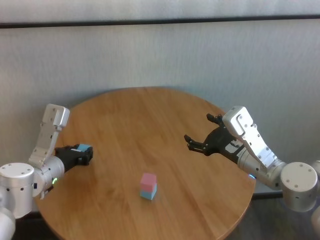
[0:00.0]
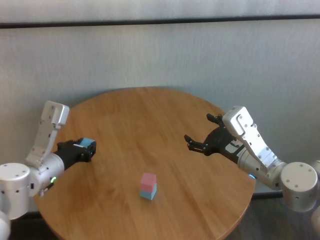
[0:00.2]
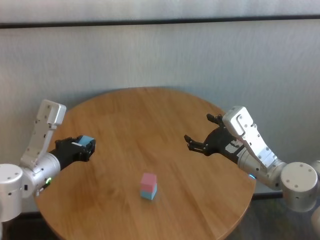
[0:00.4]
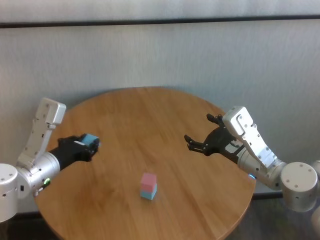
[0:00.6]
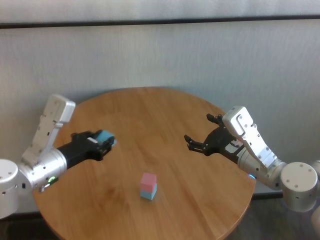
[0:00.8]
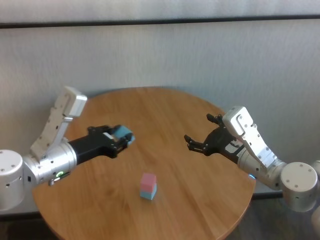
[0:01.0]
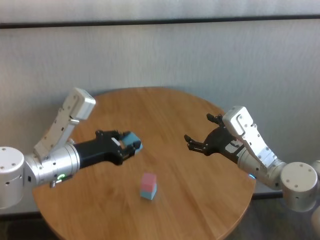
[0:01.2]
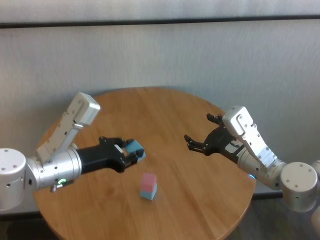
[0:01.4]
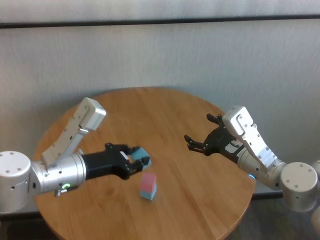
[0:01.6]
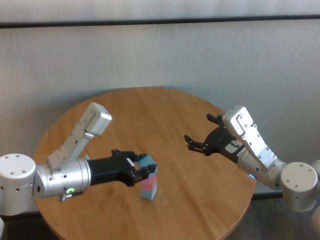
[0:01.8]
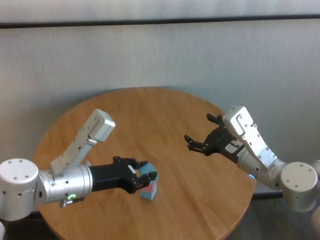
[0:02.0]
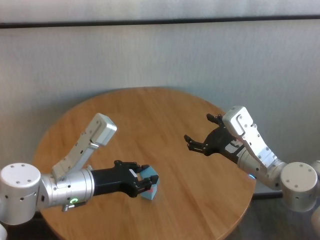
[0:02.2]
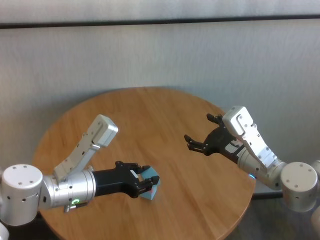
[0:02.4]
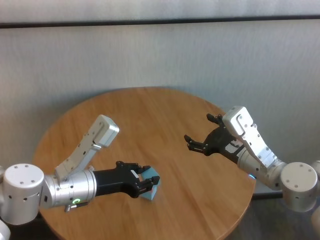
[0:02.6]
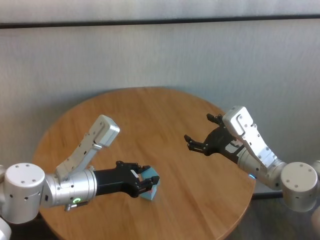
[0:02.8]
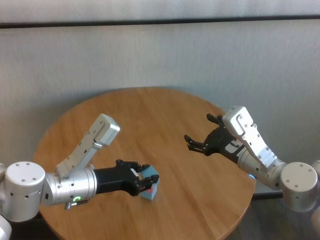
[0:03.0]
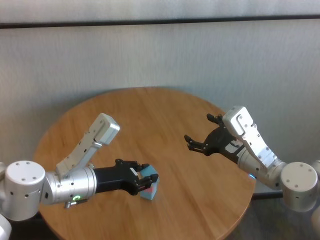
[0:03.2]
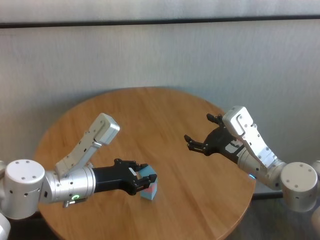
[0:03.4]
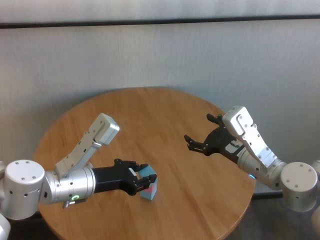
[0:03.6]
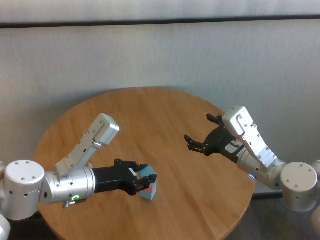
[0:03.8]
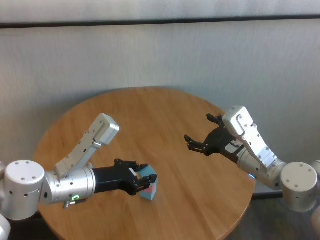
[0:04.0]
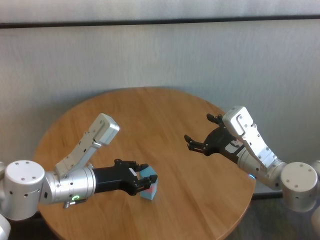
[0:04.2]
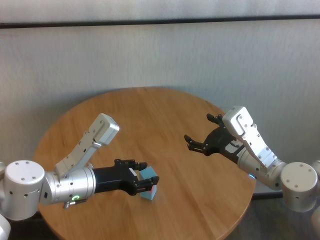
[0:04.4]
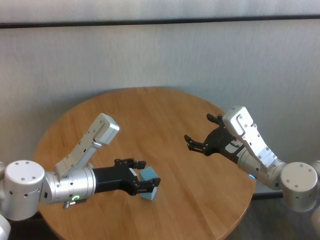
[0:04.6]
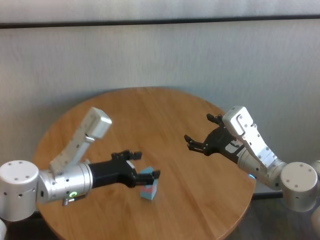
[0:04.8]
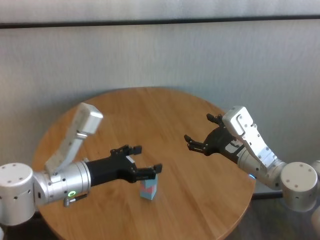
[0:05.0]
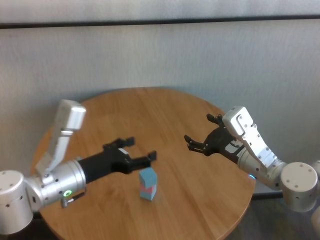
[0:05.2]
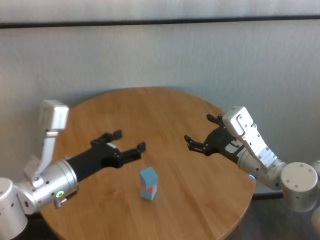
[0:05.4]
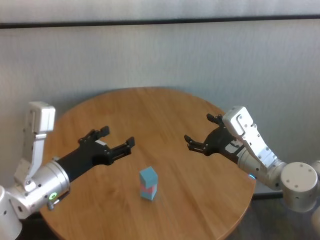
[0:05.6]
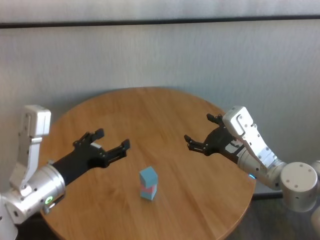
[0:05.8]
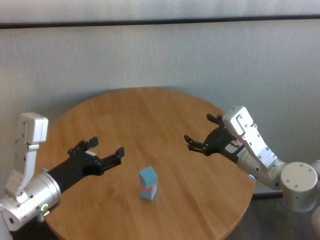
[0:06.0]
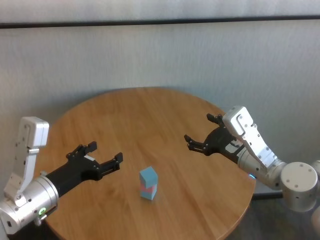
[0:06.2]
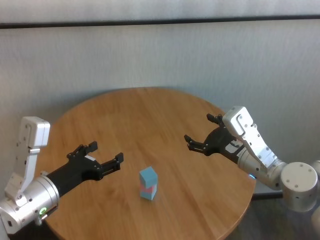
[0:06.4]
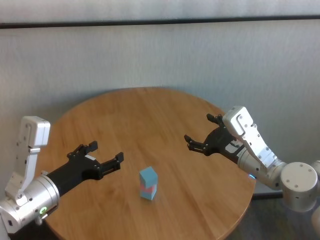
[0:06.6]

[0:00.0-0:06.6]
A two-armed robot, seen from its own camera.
Task of the whole recording: stack building blocks on the table.
Step, 0:00.0 to 0:04.2: Place the green block on the pink block with left gripper.
